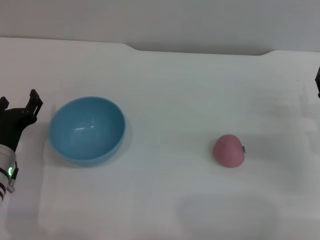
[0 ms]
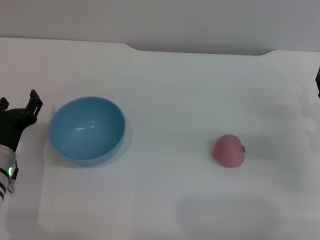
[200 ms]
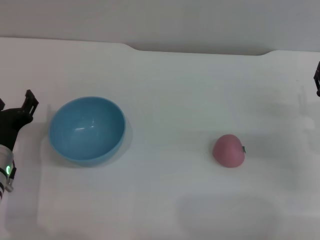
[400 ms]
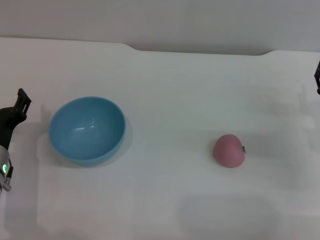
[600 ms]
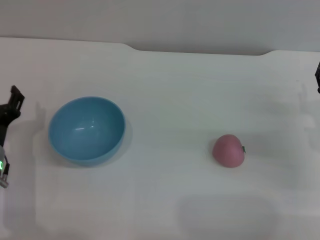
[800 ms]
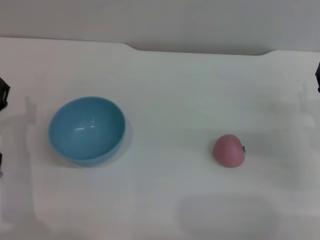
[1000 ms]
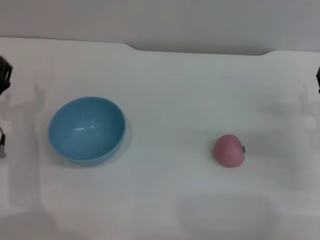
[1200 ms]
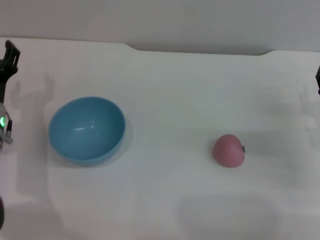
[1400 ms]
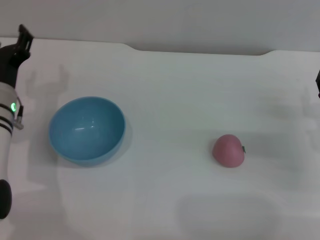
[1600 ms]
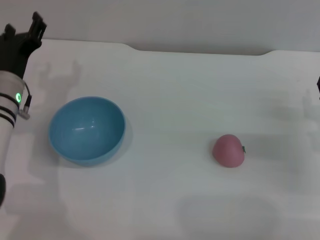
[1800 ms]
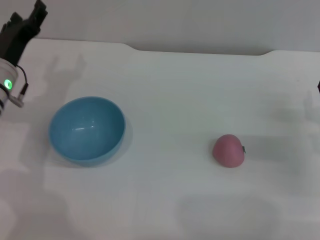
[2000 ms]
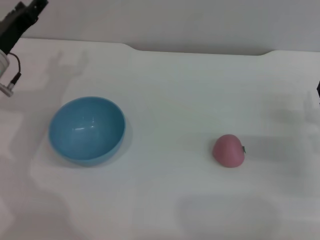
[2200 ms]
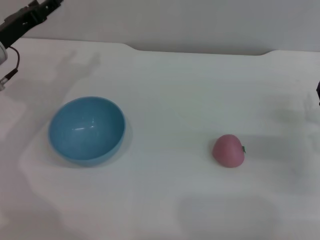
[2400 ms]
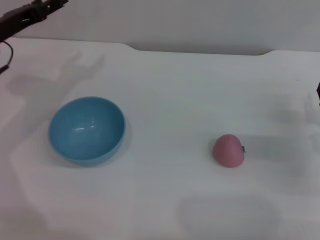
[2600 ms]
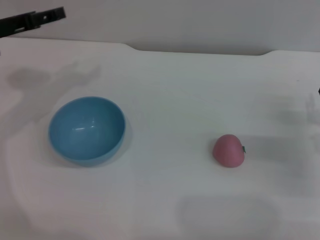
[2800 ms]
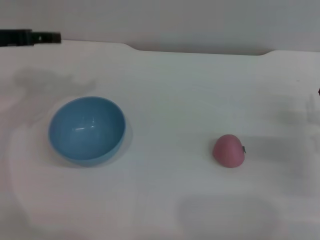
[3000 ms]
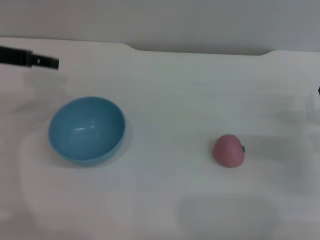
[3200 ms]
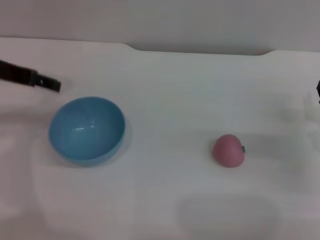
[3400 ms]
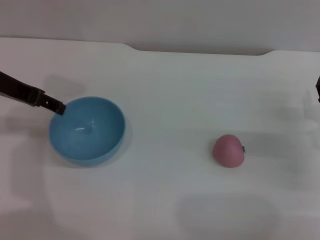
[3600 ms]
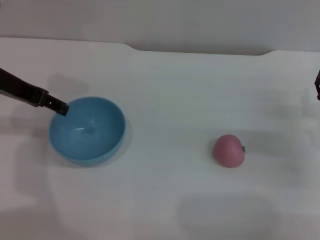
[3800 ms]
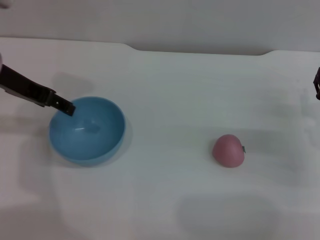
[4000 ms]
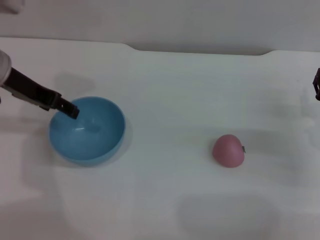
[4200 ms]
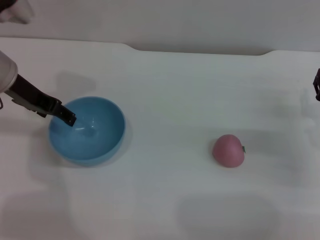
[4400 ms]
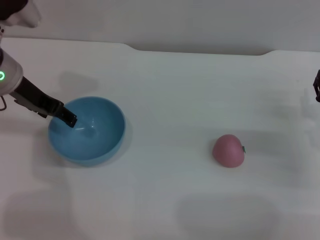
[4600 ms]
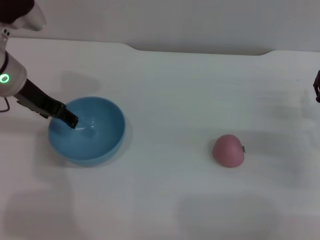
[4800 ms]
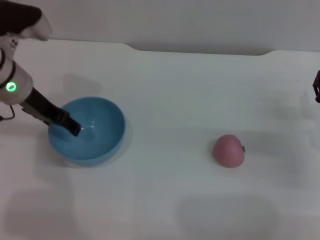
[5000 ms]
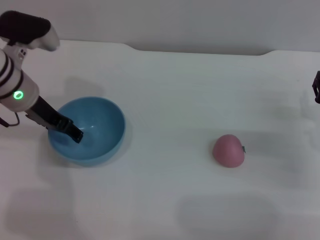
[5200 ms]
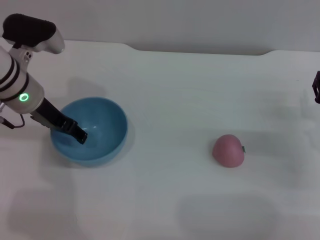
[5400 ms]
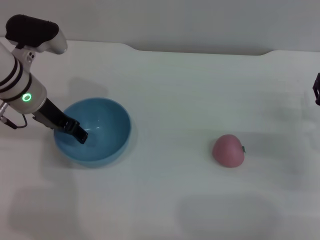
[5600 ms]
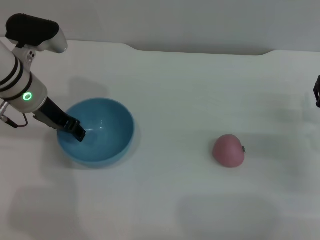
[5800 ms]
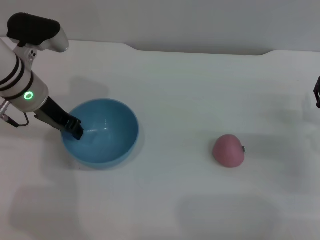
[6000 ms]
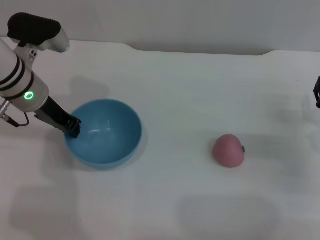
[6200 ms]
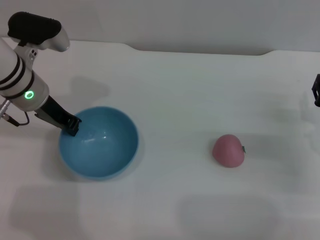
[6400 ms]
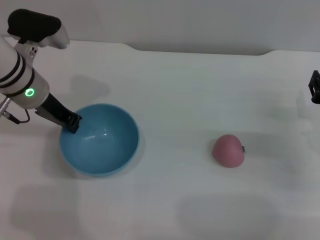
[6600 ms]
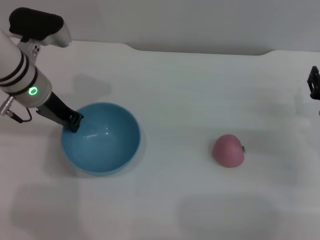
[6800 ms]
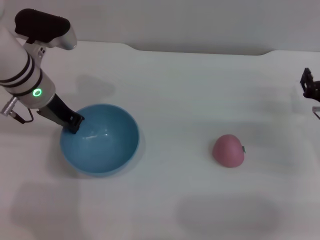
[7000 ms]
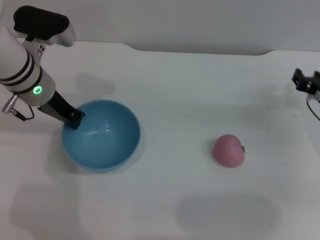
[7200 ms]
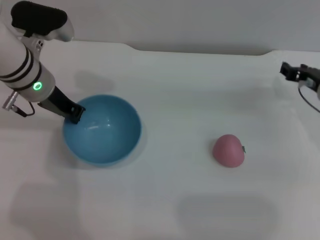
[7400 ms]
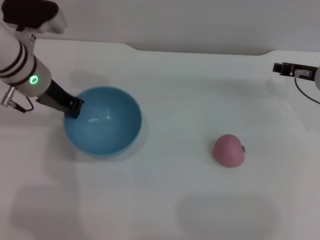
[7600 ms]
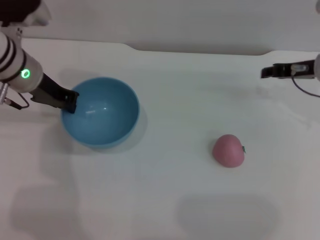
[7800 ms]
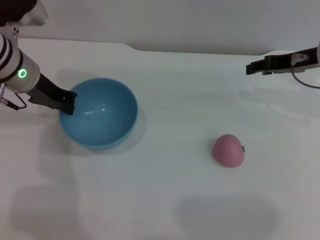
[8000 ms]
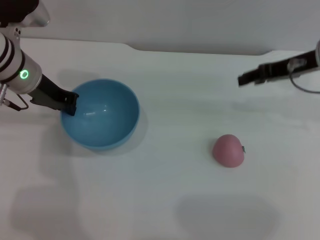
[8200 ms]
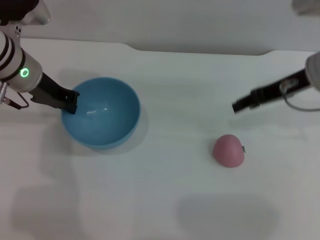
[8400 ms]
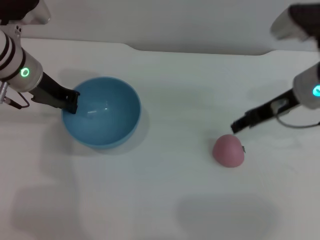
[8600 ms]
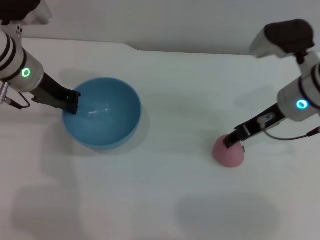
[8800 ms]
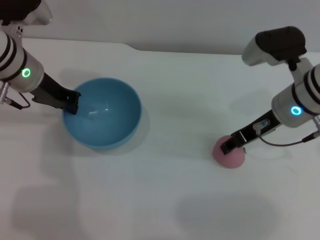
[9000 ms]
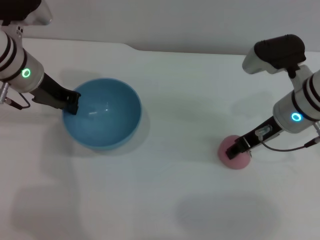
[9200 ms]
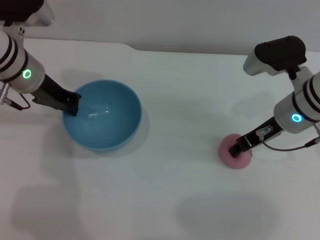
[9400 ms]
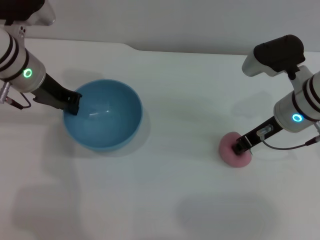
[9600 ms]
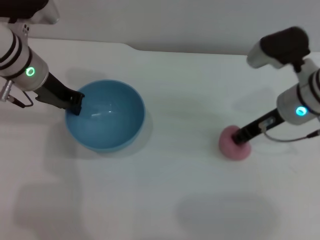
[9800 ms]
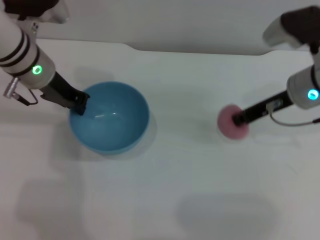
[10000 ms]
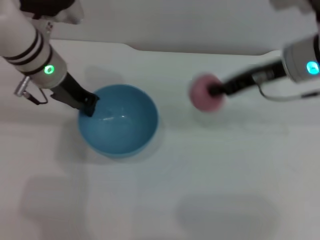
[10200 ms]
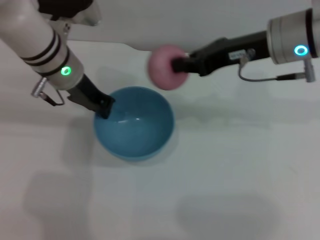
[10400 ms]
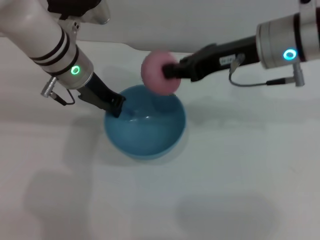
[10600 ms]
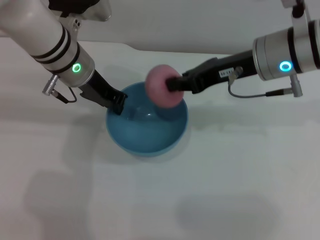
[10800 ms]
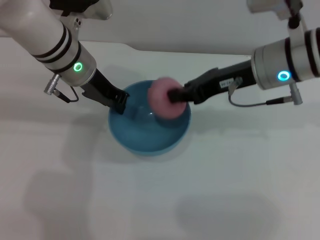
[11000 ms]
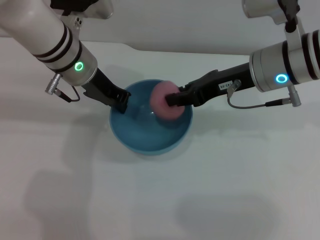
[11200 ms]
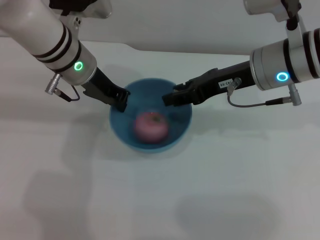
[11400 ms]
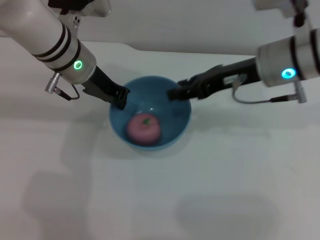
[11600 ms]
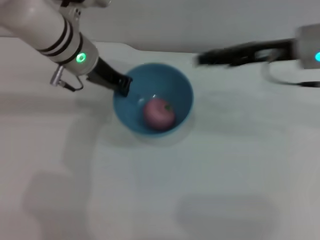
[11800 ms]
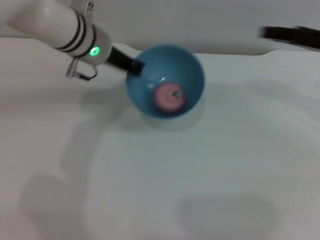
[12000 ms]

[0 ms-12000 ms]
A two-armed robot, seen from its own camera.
Task of the whole recording: put the peach into the blue bowl and pour it out repeatedly.
Step, 0 ms to 7400 ms: Pick up the bowl with the left gripper.
Step, 7600 ms to 10000 ms: Pick up the peach with the right gripper.
Step, 10200 ms to 11800 ms: Place the peach into the bowl.
0 ms to 1600 ms: The left gripper moves forward and upward, roughly 10 cm.
1600 ms to 3000 ms: The left gripper is displaced upward and to the left by roughly 15 cm.
3000 ms to 4400 ms: The left gripper goes approximately 5 cm to the right.
4400 ms to 6000 ms: The left gripper ends up approximately 5 cm from where it was.
6000 ms to 7600 ms: The left gripper closes, while the right gripper shifts approximately 10 cm forward and upward.
7600 ms to 9000 ms: The right gripper is displaced to the left and backward by some 10 cm.
9000 ms to 10400 ms: The right gripper moves upward, approximately 10 cm, and closes its fingers, while the left gripper travels to the right by some 5 cm.
10400 ms to 12000 ms: The right gripper heads to the right, covering approximately 15 cm, and opens.

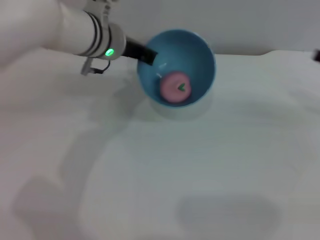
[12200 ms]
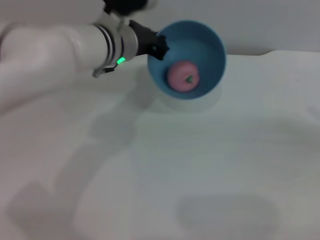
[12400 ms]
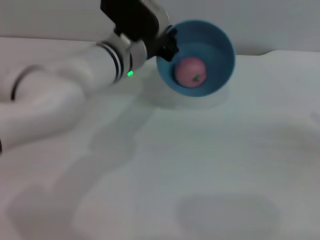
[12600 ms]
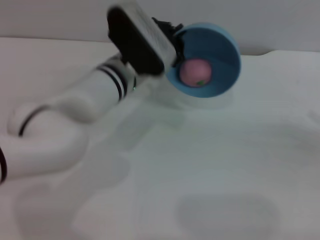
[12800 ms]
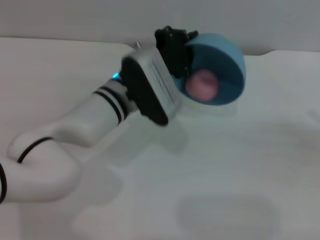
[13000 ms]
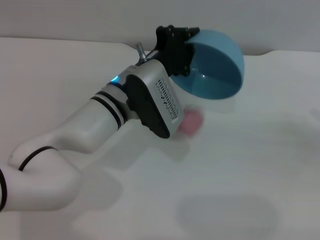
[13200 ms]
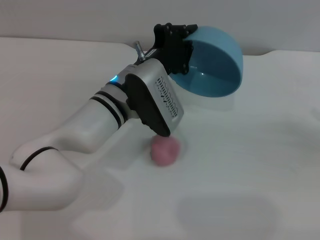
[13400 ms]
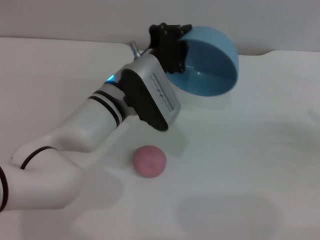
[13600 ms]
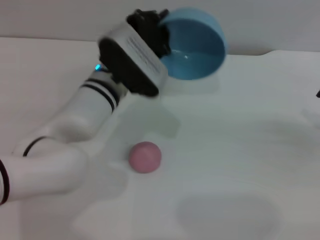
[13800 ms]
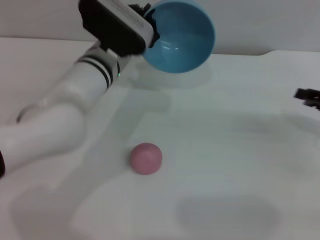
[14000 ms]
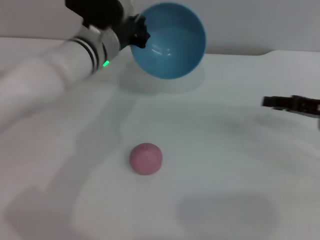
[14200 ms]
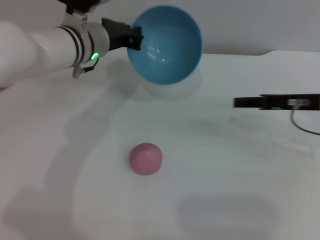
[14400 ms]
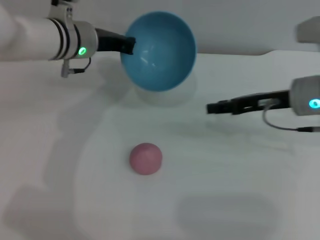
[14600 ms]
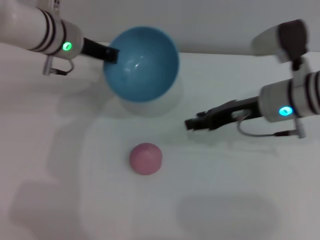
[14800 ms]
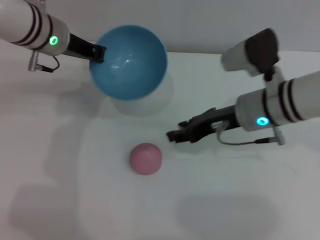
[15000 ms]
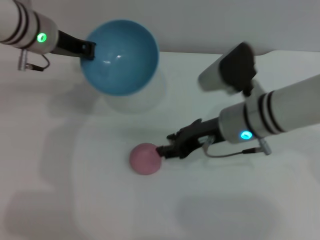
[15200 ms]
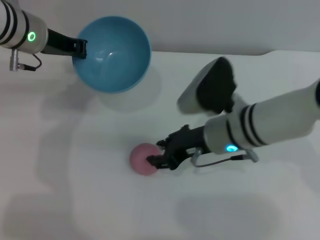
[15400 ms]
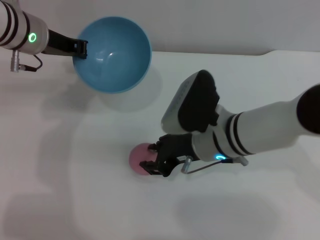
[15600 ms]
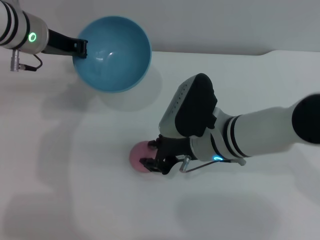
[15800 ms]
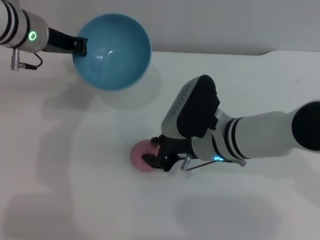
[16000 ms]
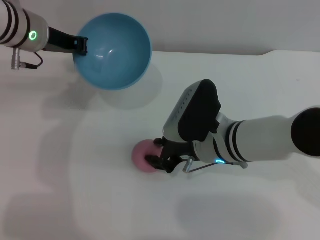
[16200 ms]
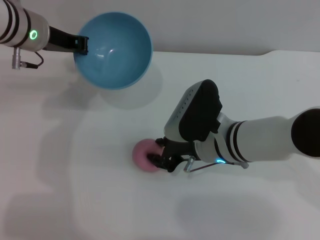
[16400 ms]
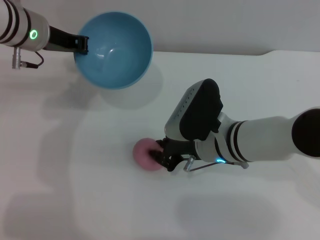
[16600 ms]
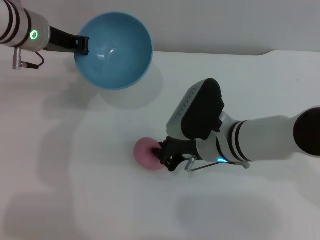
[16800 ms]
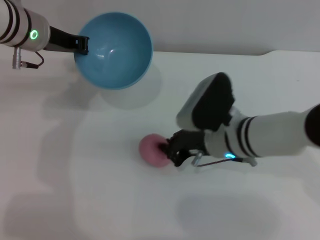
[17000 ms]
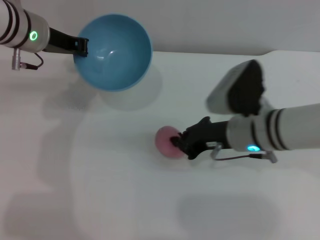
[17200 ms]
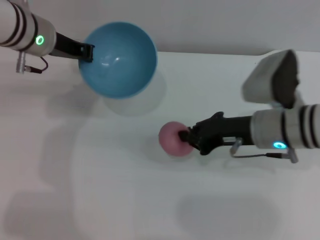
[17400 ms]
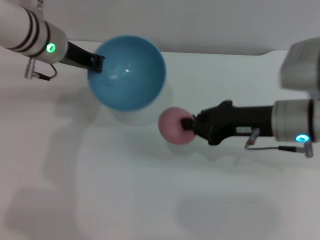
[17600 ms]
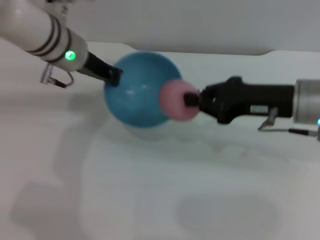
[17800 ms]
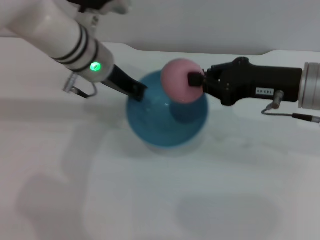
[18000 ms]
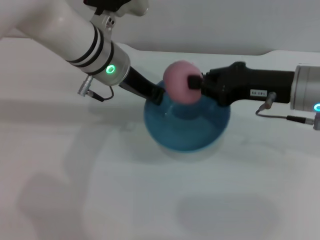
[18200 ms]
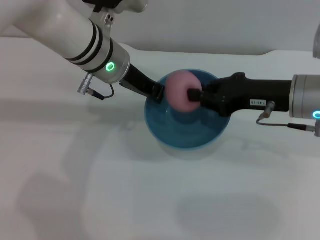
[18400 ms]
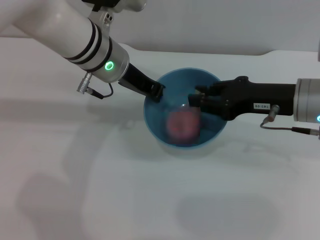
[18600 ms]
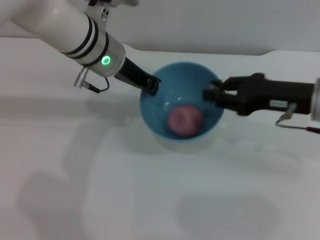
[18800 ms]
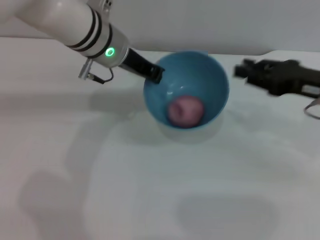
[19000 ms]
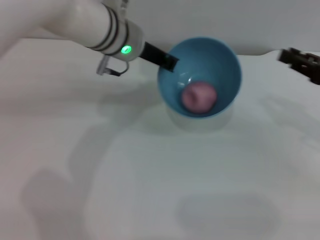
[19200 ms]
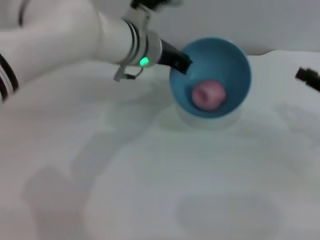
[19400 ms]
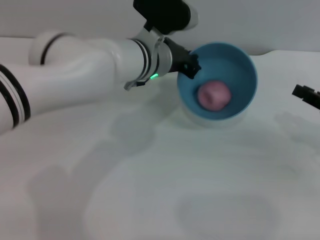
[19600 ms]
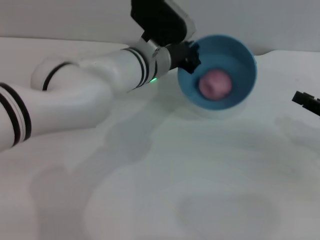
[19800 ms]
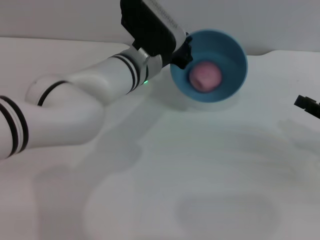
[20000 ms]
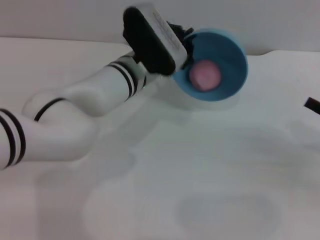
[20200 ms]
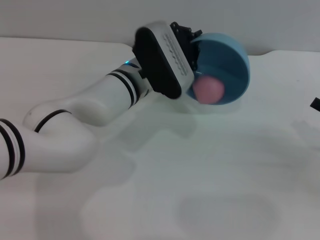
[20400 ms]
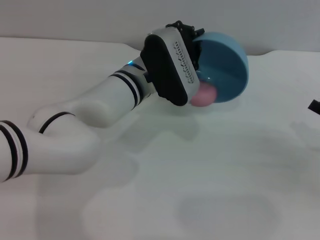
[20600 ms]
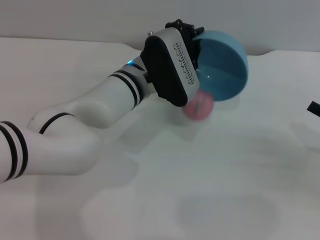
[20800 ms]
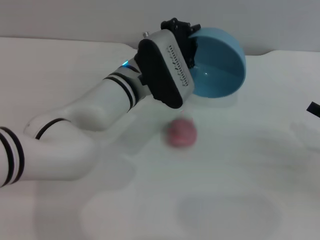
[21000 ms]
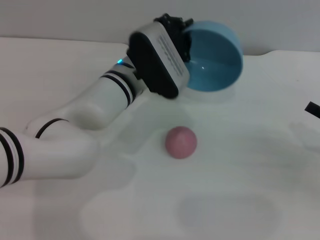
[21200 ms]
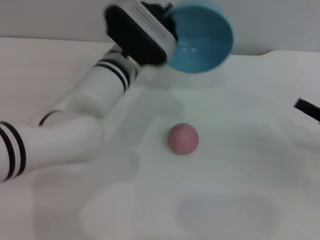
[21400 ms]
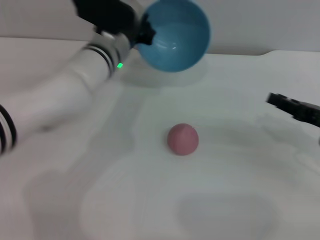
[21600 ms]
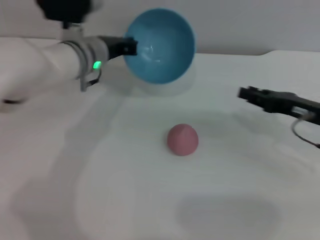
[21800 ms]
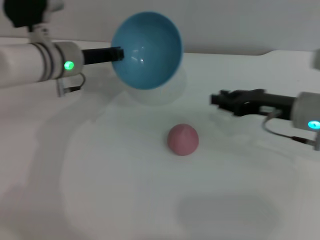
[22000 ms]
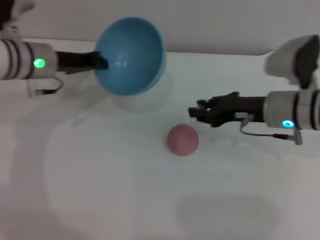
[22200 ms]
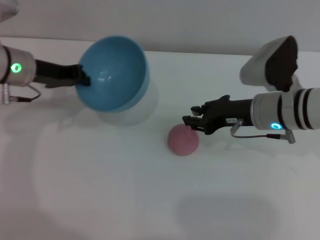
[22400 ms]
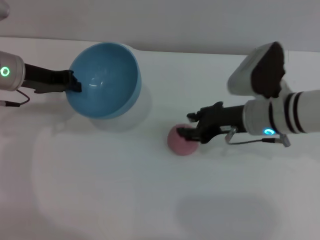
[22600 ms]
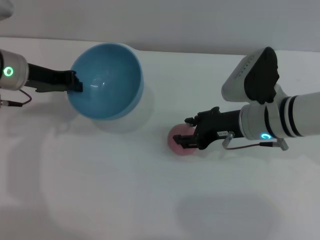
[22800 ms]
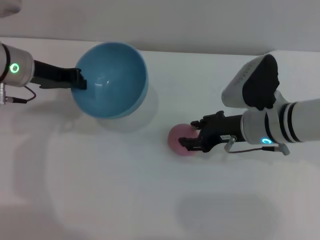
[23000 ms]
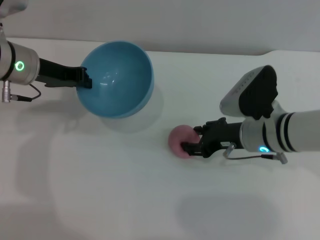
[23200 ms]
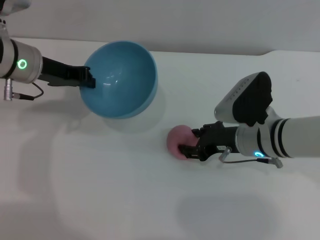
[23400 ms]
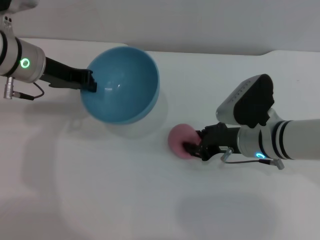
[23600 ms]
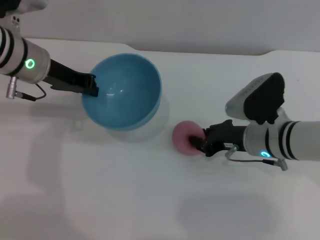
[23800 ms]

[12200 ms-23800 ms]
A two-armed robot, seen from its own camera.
Task of the whole recording: put the peach into the blue bowl and pour it out repeatedly.
Step, 12200 ms to 13600 ms: Pour the peach out of bowl.
Step, 13800 ms to 17200 ms: Pick up the peach with the right gripper.
Step, 17400 ms to 19200 ms: Place the peach into the bowl.
Step, 19400 ms to 21400 ms: Pour the peach out of bowl.
12200 ms to 13600 ms: The right gripper moves approximately 5 cm; the left gripper moves downward and backward, approximately 10 cm.
13600 ms to 15000 ms: The left gripper heads to the left, upward and forward, covering some 15 cm. The right gripper goes about 25 cm to the left.
15000 ms to 16600 ms: The right gripper heads to the left, covering roughly 5 cm.
16600 ms to 18000 ms: The left gripper goes about 10 cm to the right, while the right gripper shifts some 15 cm to the right and upward, and closes its fingers.
18000 ms to 19400 ms: The right gripper travels to the right and downward by roughly 15 cm, and opens up; the left gripper shifts some 5 cm to the right.
19400 ms to 21000 ms: The left gripper heads downward, covering some 5 cm; the right gripper ends up about 5 cm from where it was.
21000 ms to 22400 ms: The right gripper goes approximately 20 cm to the left and forward, while the left gripper shifts about 20 cm to the left.
22400 ms to 23800 ms: The right gripper shifts by about 5 cm.
